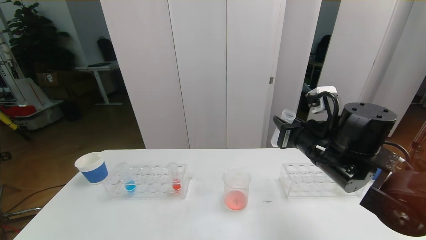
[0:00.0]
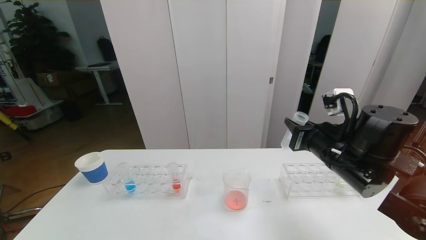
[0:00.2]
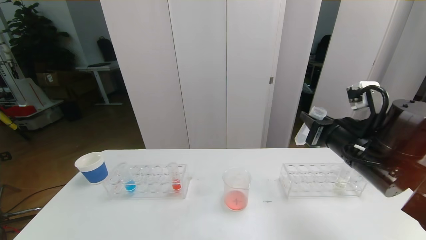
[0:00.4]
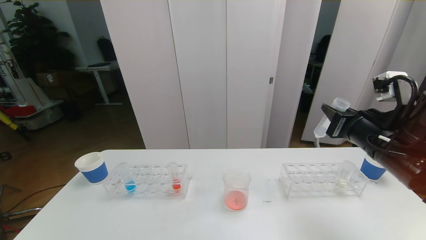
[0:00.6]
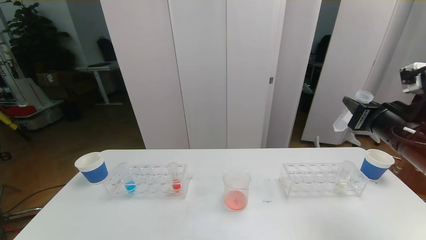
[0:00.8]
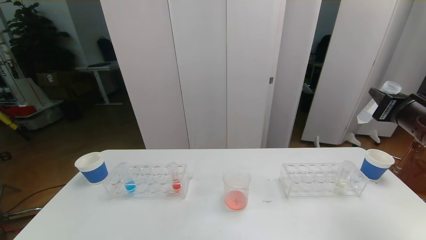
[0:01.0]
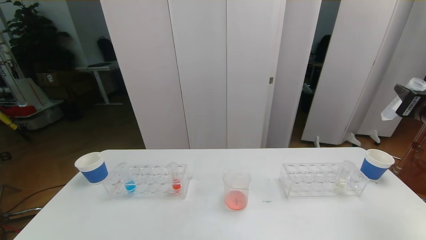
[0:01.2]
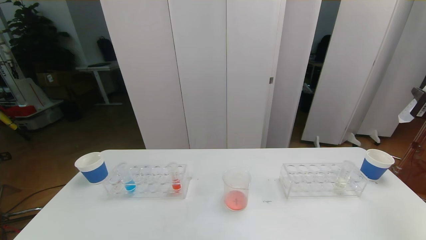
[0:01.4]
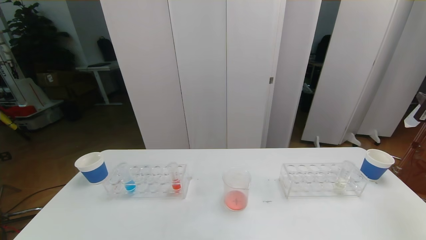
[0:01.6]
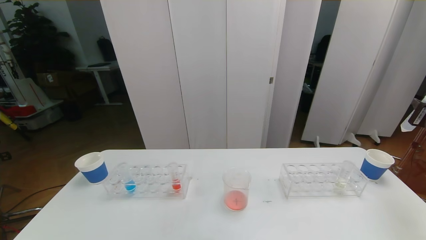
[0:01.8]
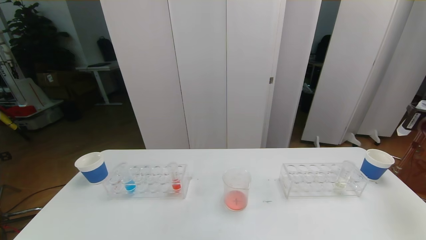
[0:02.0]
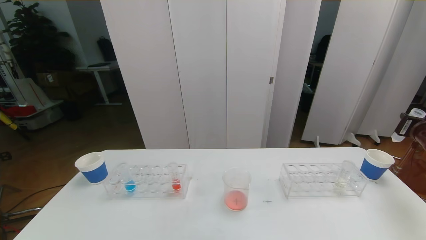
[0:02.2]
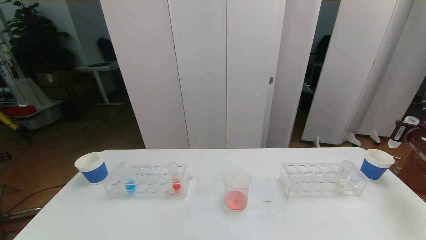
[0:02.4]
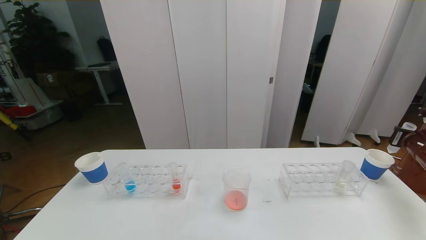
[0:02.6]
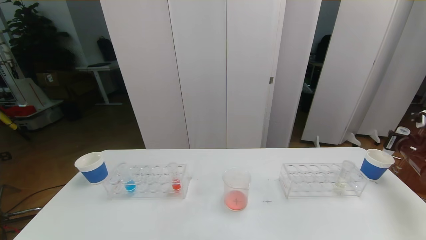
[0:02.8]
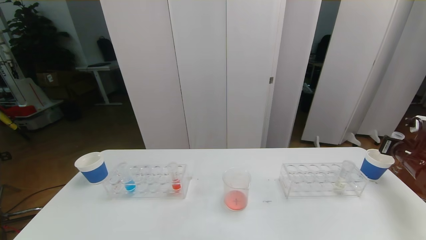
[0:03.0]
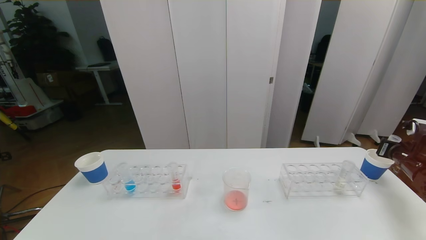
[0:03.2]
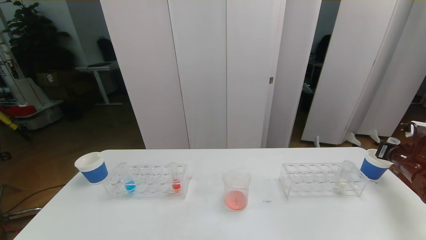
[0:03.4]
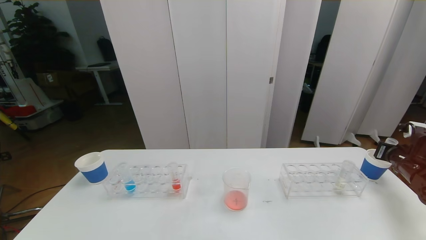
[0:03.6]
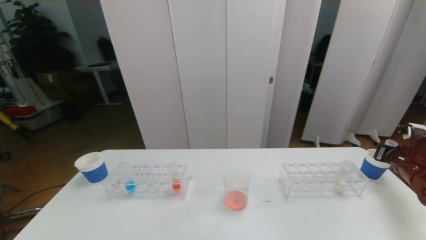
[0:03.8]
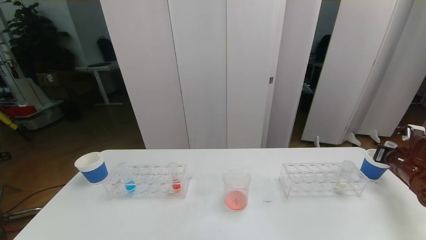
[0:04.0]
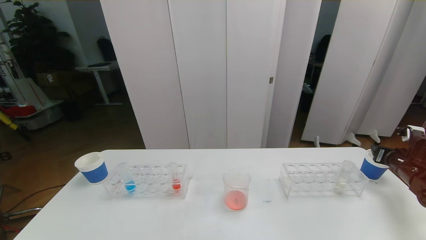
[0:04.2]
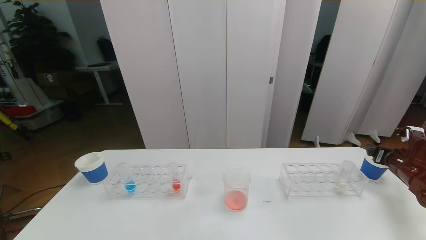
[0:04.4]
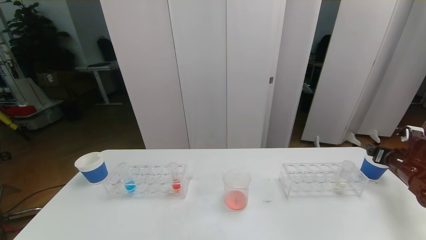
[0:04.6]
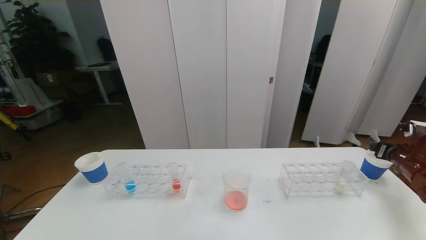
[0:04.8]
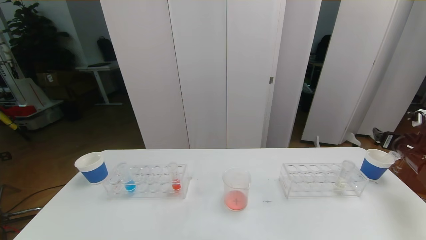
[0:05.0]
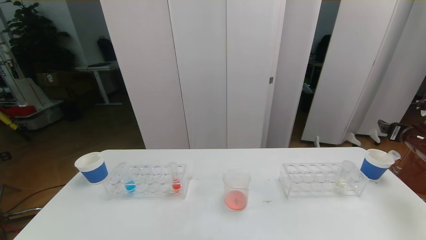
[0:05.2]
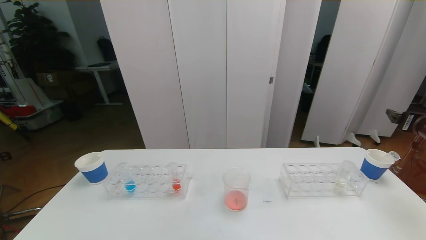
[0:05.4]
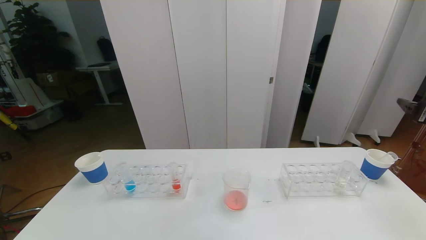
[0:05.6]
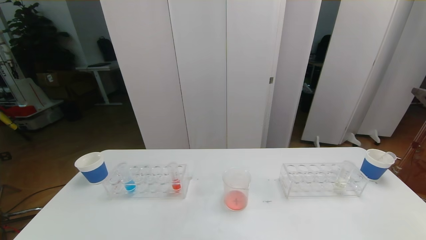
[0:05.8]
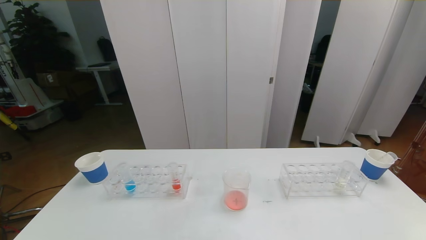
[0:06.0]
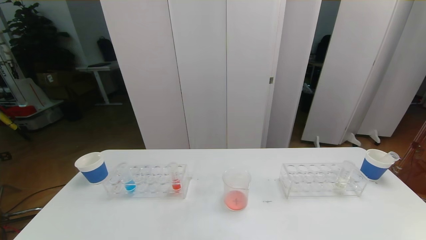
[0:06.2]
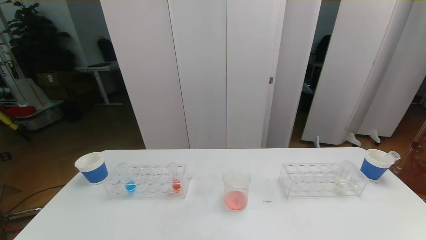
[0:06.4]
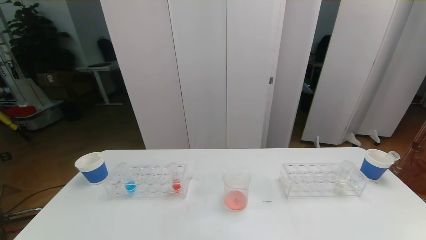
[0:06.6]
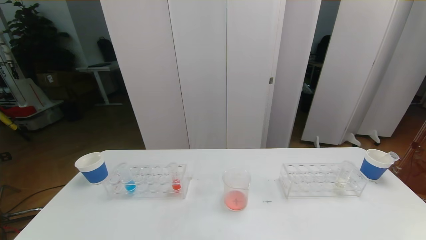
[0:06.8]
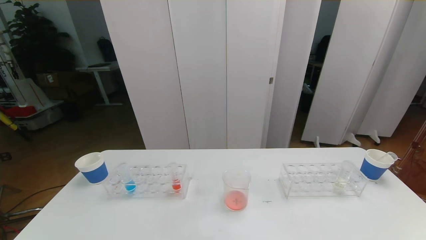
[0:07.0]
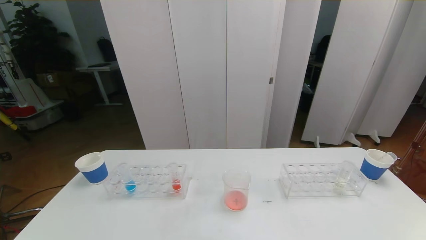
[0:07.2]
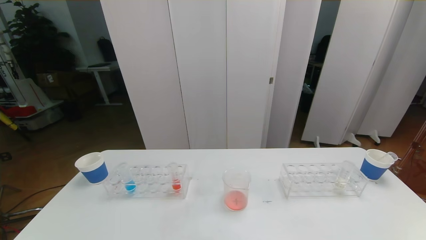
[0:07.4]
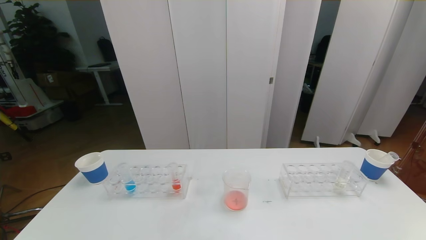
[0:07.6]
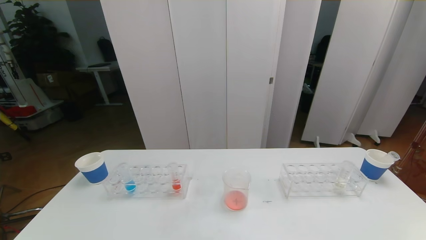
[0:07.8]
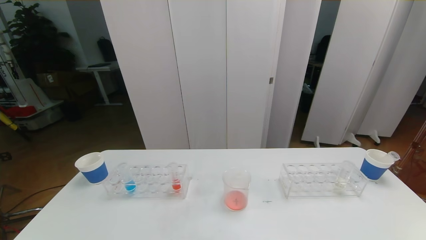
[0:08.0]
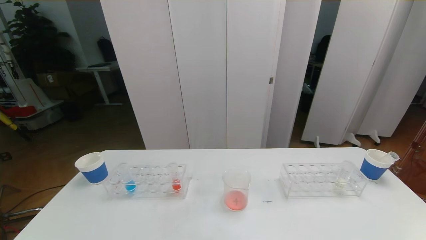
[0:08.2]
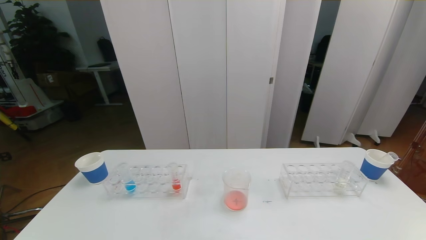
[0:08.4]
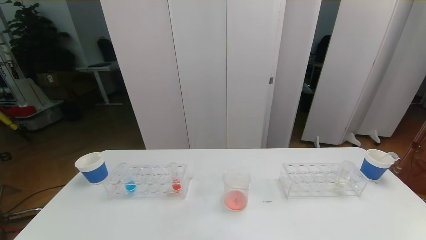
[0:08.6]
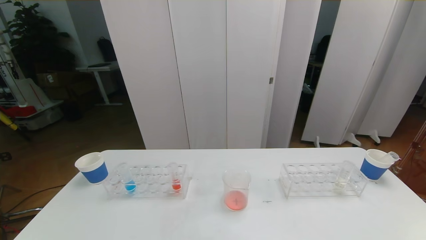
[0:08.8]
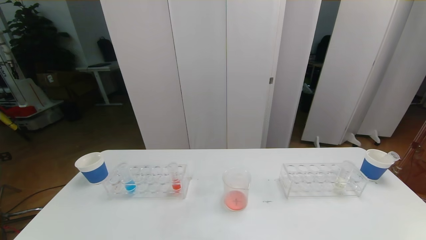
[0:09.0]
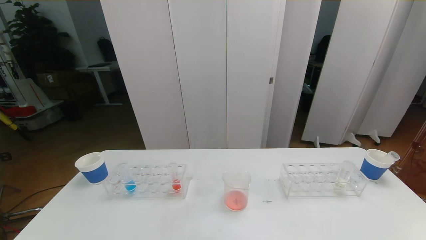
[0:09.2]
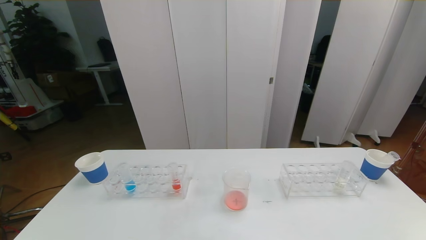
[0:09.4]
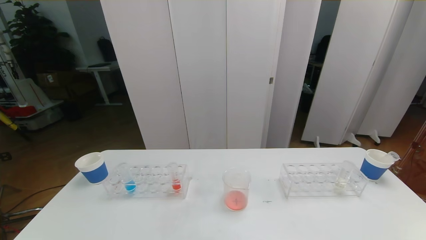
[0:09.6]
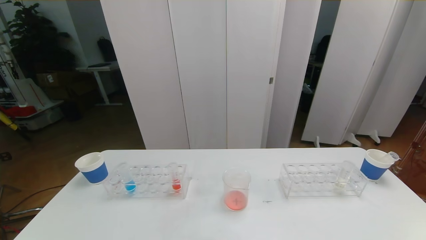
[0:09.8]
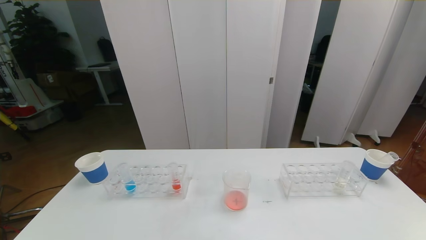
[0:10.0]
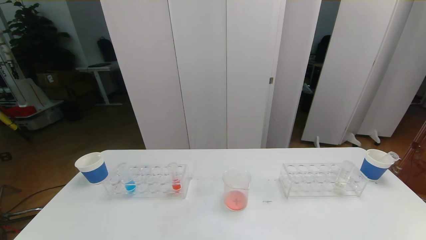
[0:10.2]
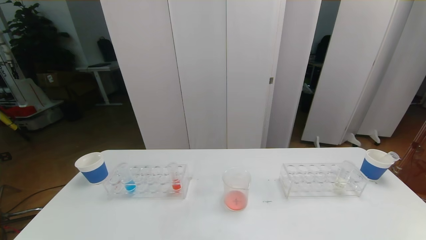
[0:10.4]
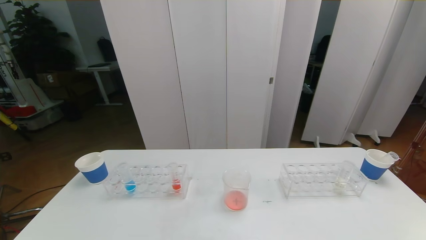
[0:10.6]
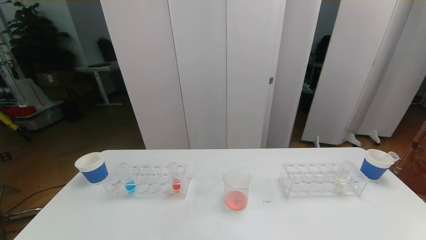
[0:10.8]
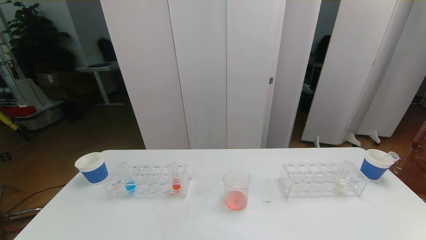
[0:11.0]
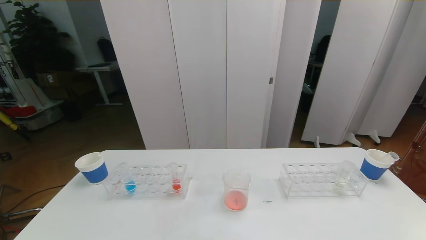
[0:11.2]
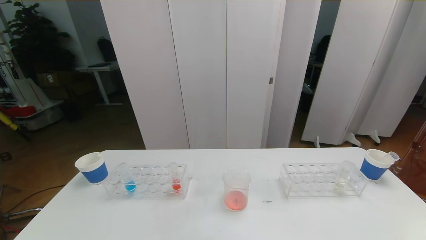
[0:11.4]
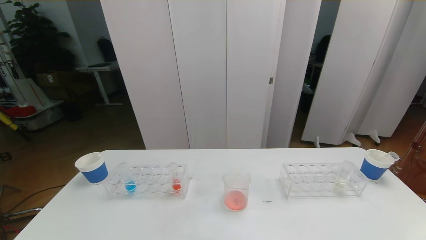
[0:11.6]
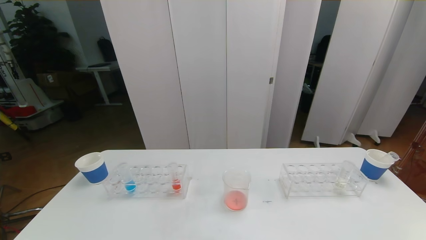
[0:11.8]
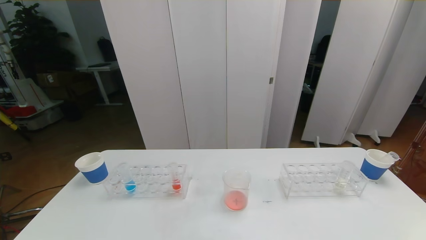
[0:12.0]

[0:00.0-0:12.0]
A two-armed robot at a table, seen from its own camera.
Task of the whole recording: pick up the test tube with red pigment the test tube with blue pigment and the test tube with white pigment by grippers and pour them into the beaker.
Step, 0:00.0 to 0:10.6: Pour the red reagent into the graduated cylinder and place the test tube into the paper cup.
0:00.0 to 0:01.6: The right gripper goes about 25 cm to the right.
0:01.6 to 0:03.0: The right gripper moves downward and forward, about 15 cm.
0:03.0 to 0:04.4: The right gripper opens up.
0:04.4 to 0:06.0: The right gripper goes some 30 cm upward and backward.
0:09.0 to 0:10.4: The two grippers keep their place.

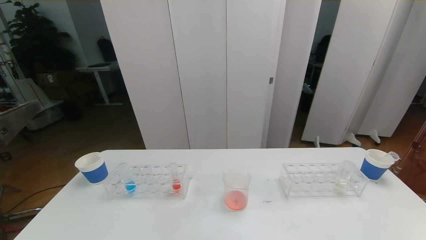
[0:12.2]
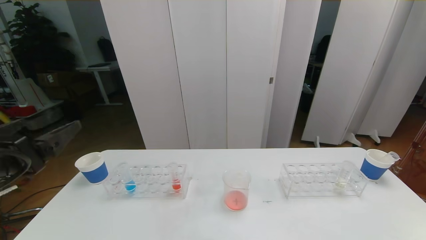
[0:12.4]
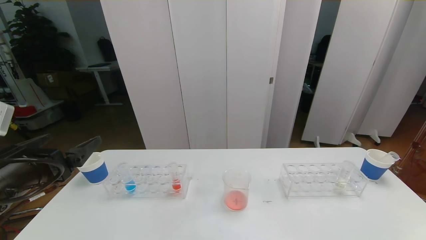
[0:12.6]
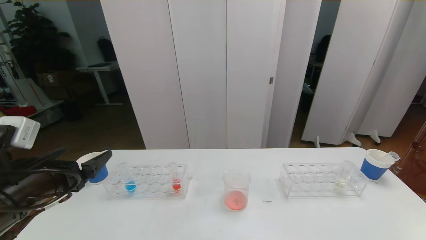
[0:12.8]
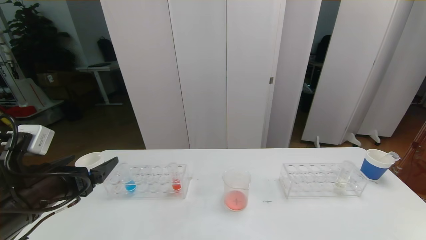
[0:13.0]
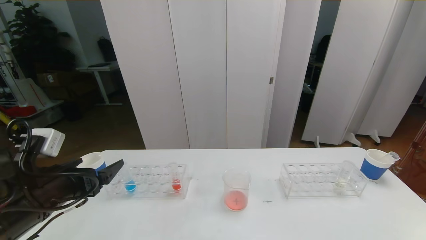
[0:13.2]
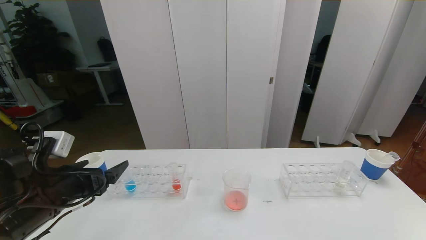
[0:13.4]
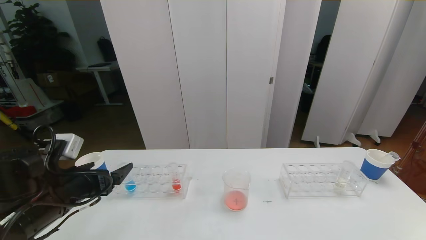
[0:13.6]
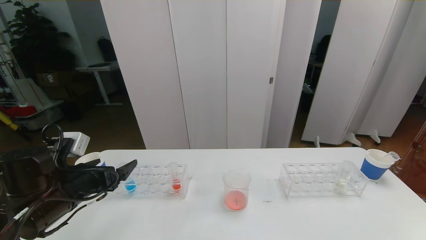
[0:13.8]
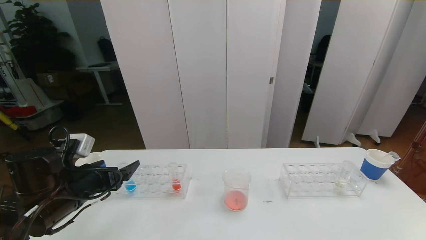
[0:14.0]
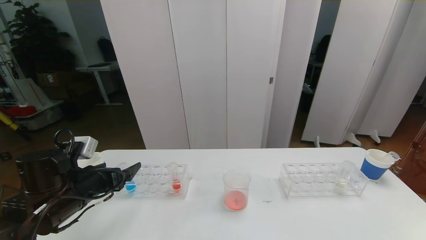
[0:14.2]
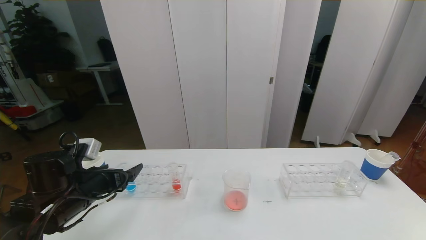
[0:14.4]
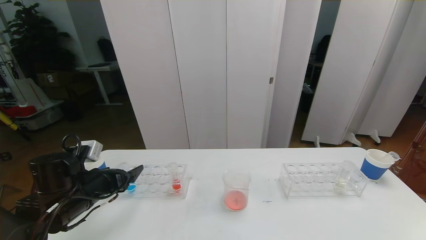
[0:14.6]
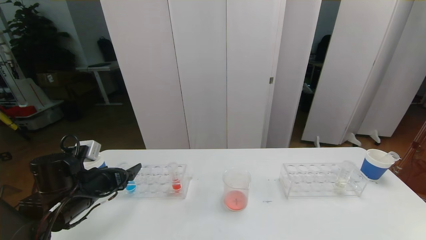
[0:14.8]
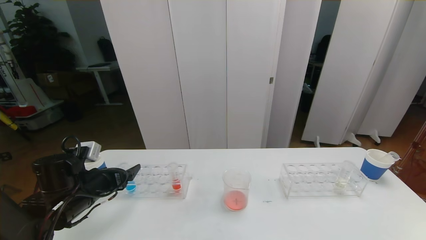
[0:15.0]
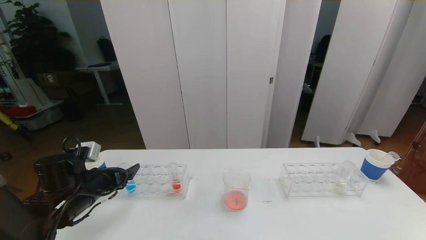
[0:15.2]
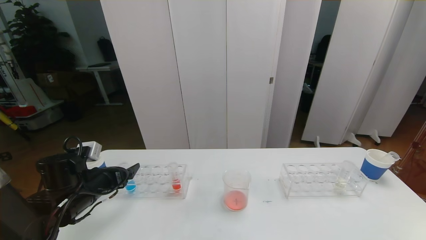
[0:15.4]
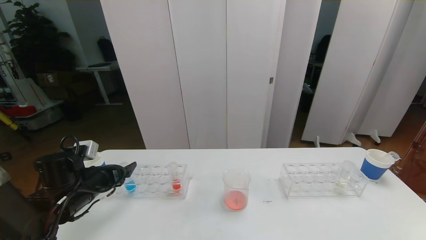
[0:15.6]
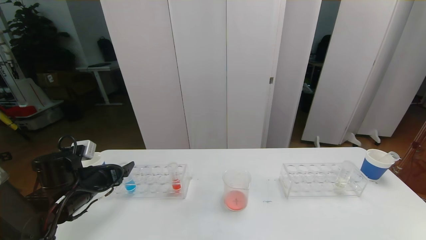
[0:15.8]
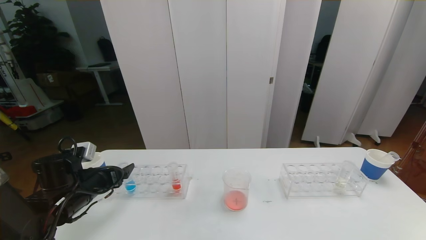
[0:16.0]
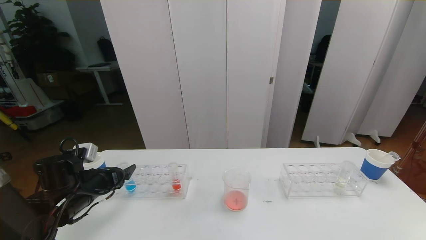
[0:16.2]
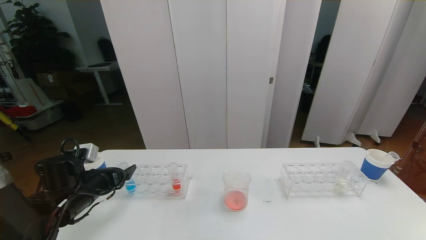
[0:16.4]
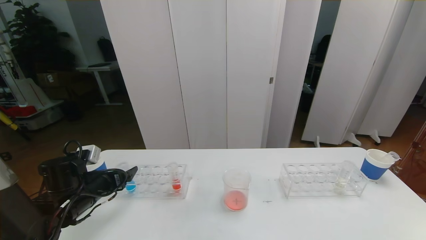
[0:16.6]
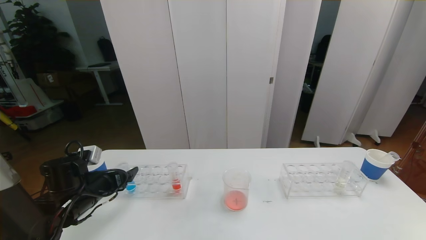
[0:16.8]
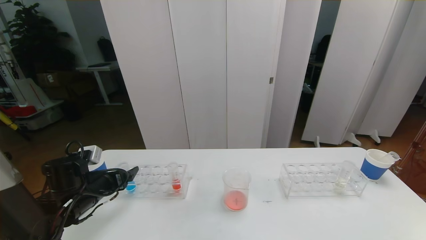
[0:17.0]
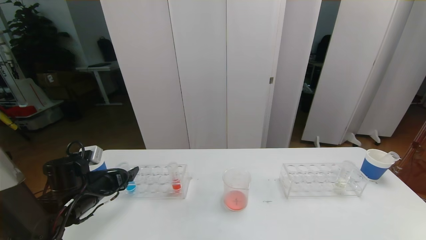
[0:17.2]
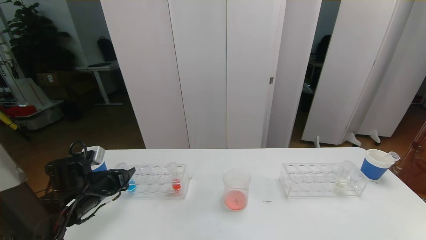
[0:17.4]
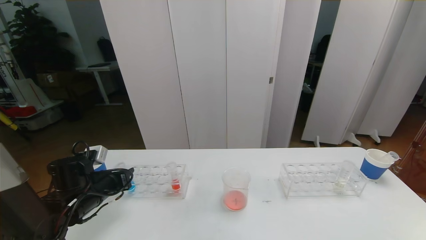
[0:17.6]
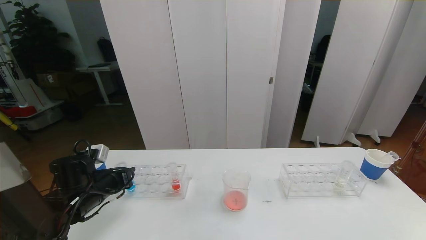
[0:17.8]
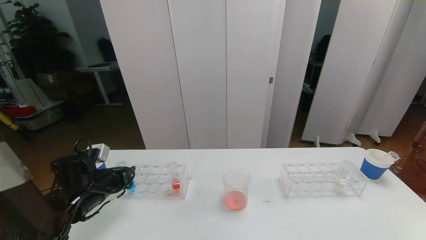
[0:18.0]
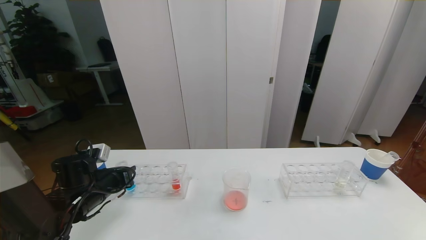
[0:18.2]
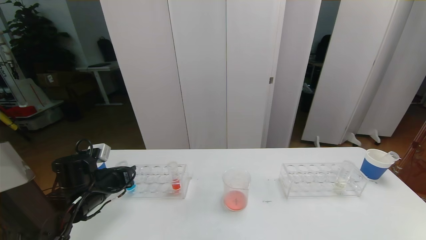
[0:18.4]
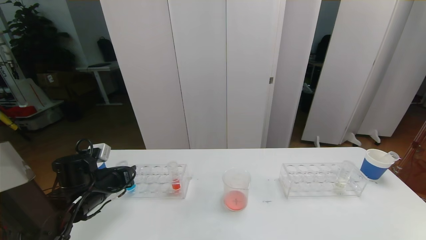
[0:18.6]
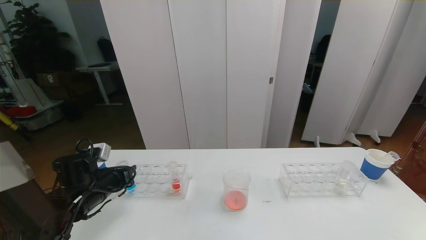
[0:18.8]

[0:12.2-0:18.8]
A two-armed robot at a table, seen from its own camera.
Task of the whole recording: pick up the test tube with red pigment the test tube with blue pigment and the test tube with white pigment by grippers and pour them into the beaker.
0:12.2 to 0:13.8: The left gripper travels downward and forward by roughly 20 cm.
0:13.8 to 0:15.4: The left gripper is displaced downward by about 5 cm.
0:15.4 to 0:17.2: There are only small adjustments of the grippers.
0:17.2 to 0:18.8: The left gripper closes its fingers.
